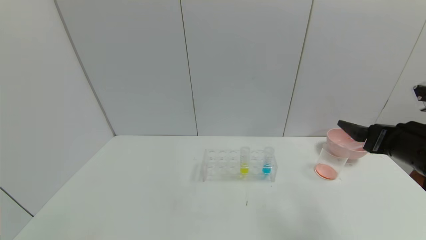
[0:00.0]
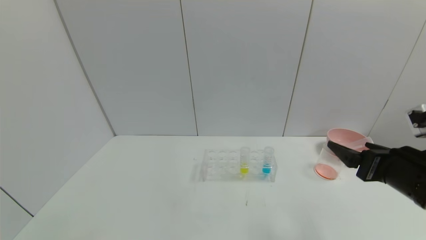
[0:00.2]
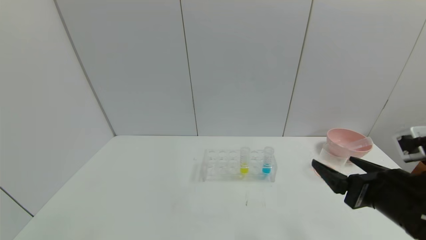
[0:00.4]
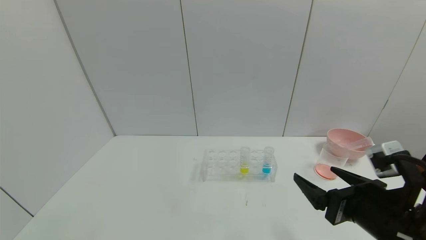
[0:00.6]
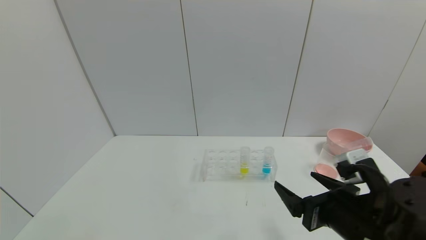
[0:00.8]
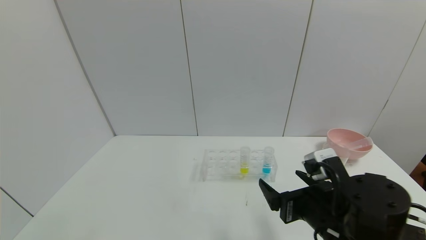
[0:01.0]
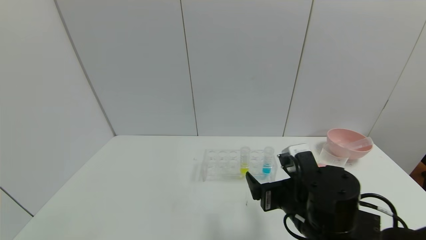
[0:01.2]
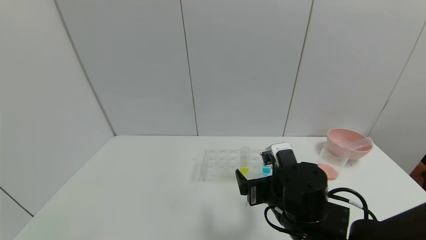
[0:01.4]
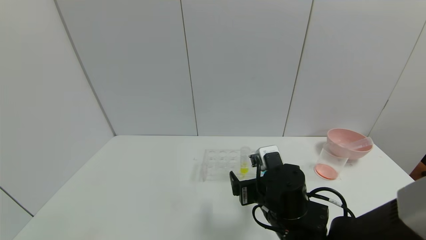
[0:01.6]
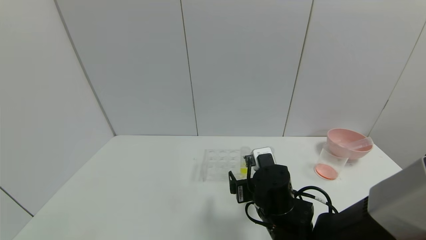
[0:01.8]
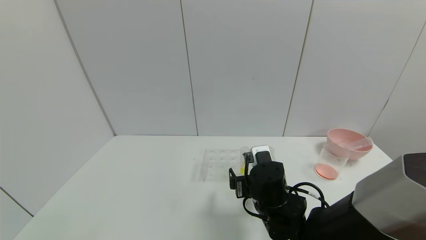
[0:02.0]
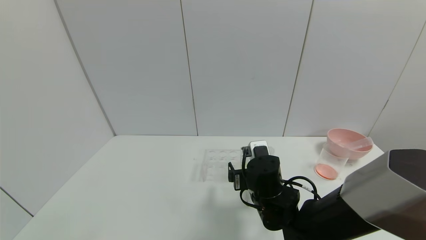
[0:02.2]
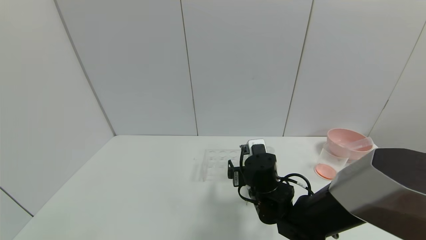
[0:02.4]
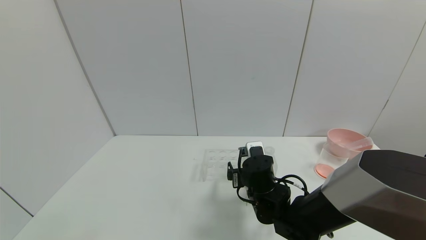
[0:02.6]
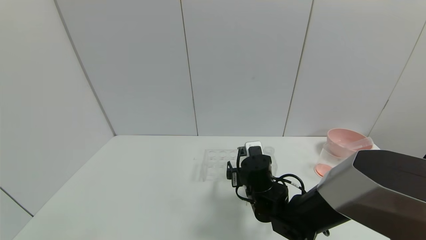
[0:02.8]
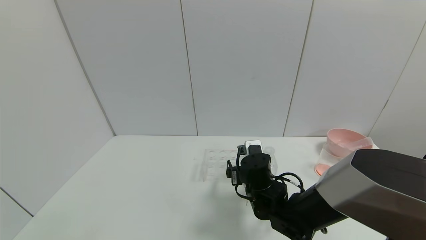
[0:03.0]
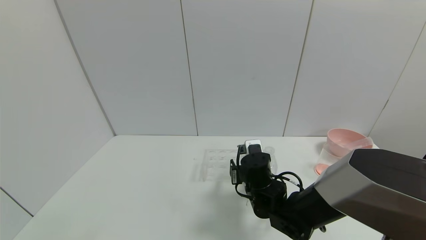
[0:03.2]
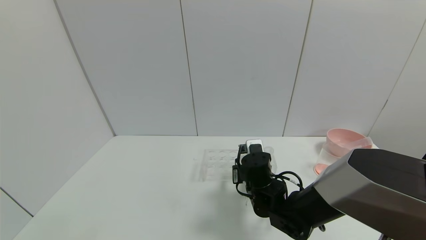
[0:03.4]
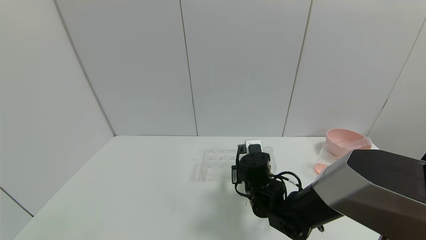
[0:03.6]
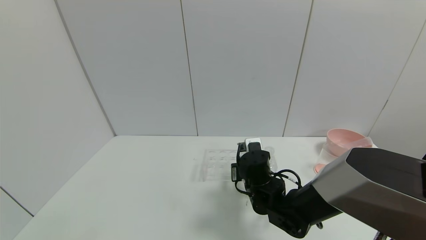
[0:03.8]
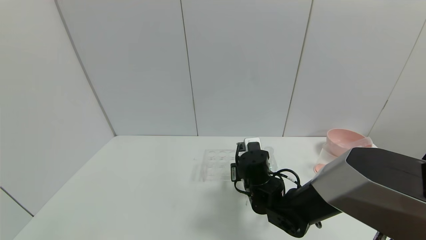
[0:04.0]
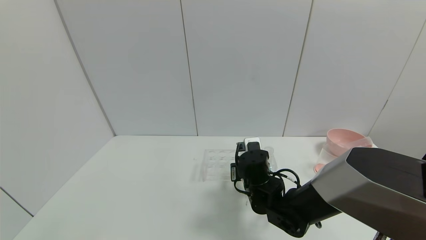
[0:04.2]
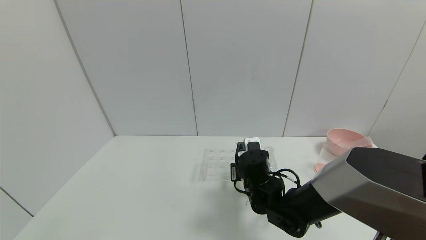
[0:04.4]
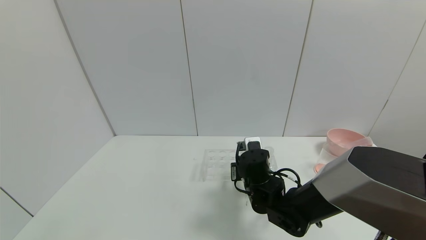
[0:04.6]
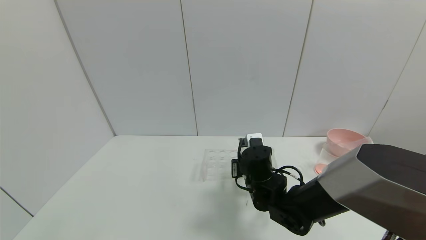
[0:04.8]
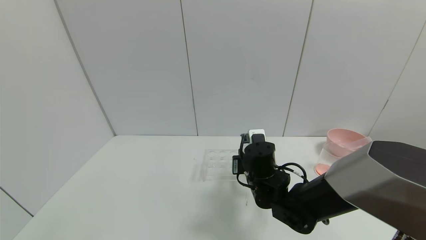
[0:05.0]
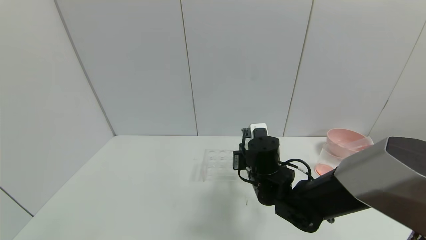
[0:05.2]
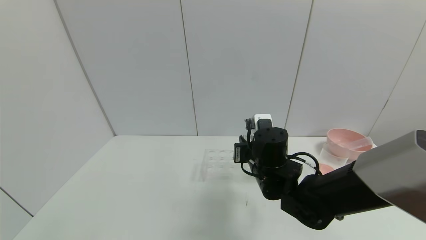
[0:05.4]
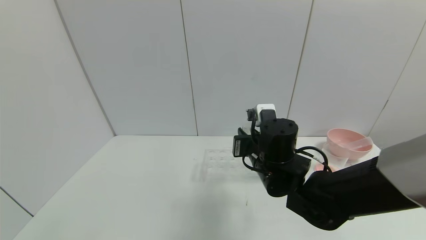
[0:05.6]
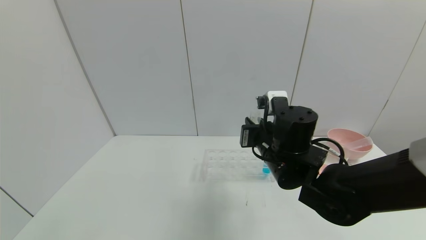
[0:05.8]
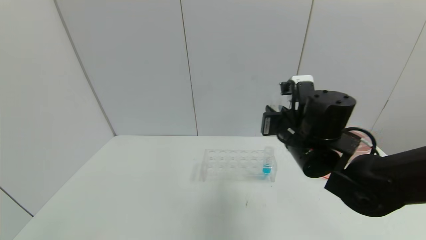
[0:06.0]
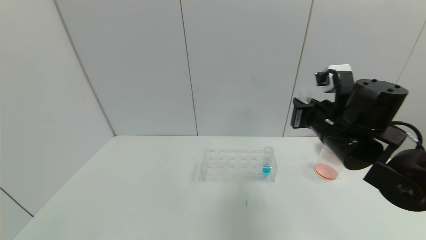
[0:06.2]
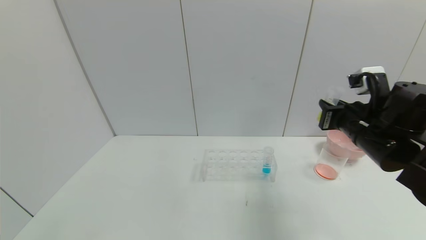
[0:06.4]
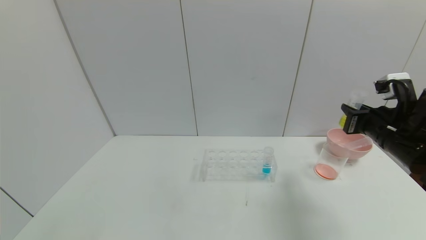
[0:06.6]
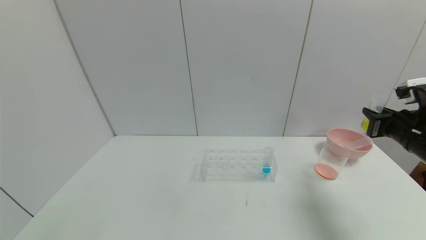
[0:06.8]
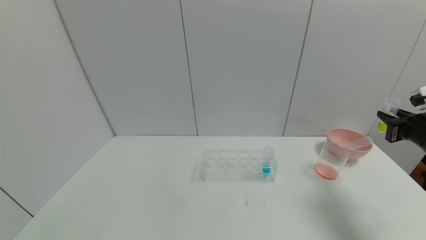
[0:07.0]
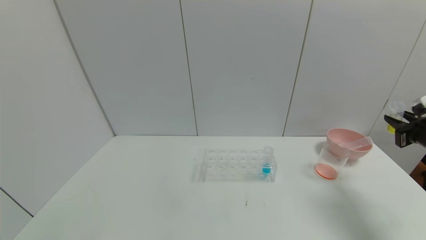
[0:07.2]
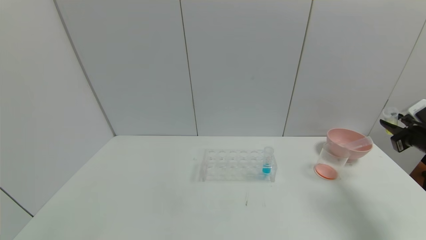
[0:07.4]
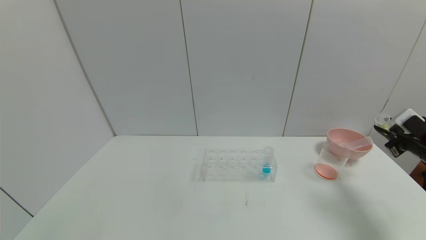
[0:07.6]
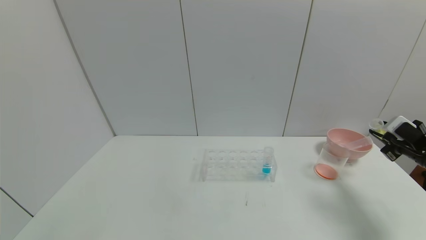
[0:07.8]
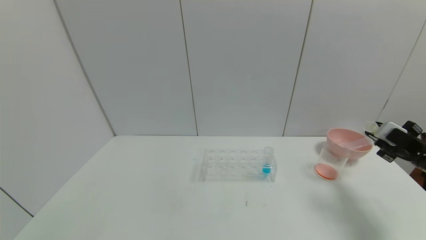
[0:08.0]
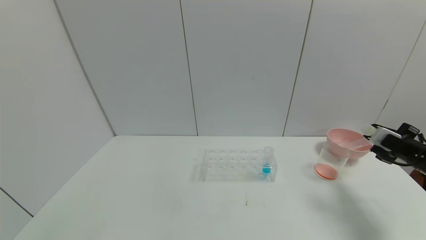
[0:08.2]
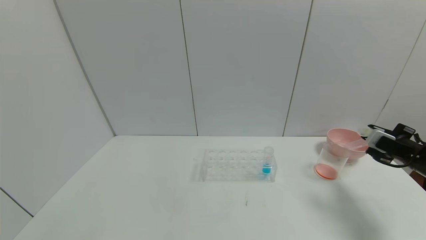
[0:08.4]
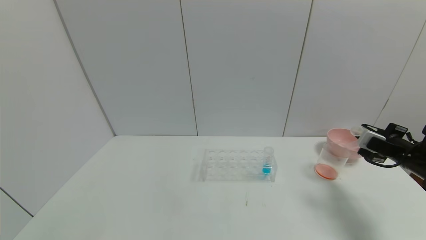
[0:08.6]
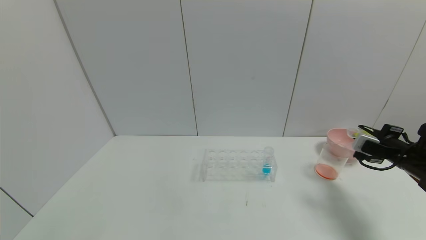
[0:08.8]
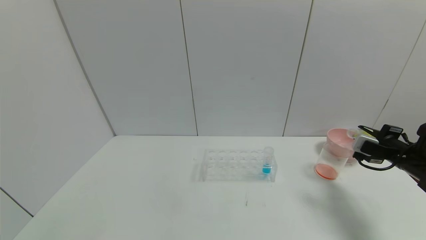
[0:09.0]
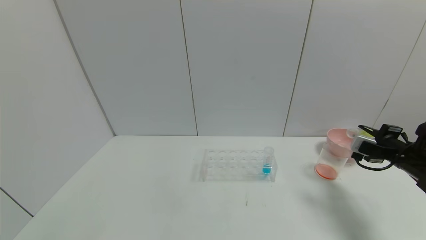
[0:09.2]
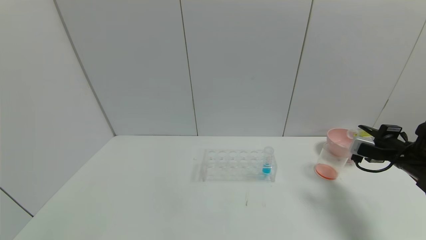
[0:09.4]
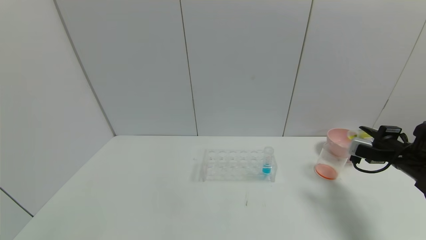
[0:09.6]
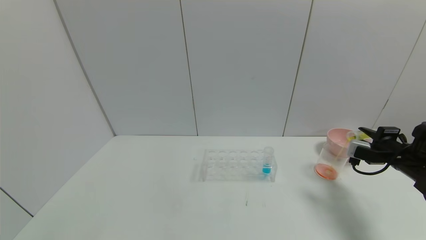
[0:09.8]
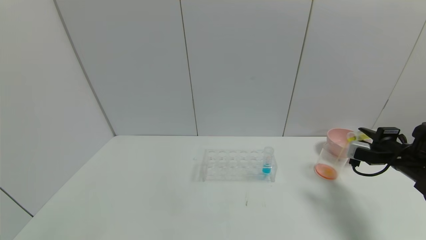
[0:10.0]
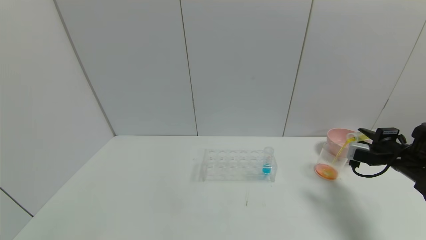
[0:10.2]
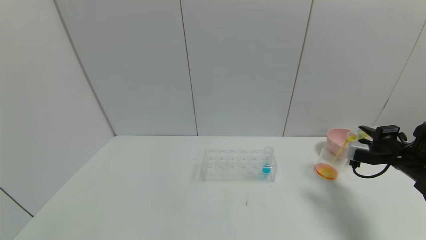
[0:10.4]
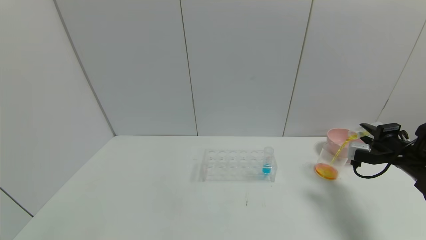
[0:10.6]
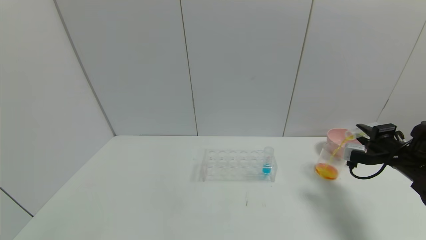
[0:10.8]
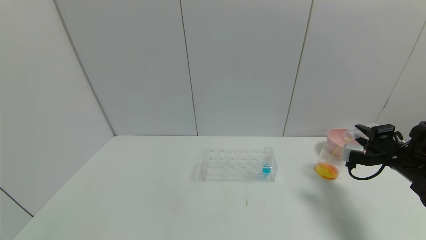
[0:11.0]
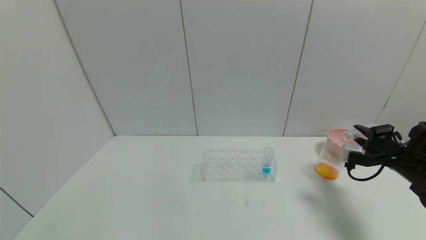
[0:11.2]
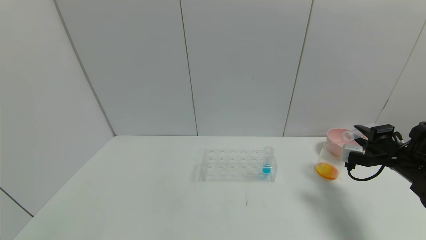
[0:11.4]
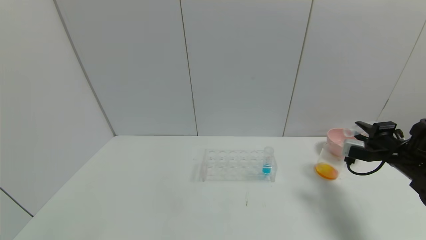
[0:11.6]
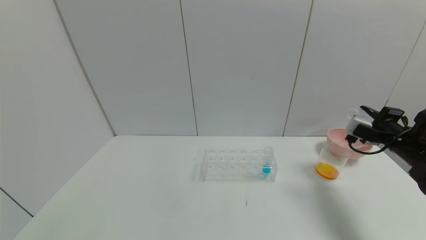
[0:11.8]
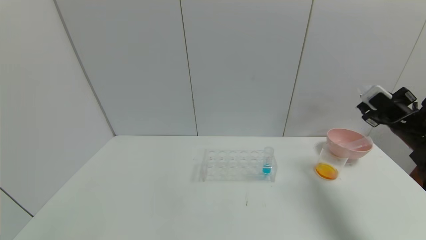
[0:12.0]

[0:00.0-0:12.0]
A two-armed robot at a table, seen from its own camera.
Task of the whole recording: pick up the test tube with yellow pigment and the test tube with red pigment by grippers and pour them into the beaker.
Step, 0:00.0 to 0:04.4: Grasp the yellow reagent with the right gripper.
Step, 0:04.6 to 0:11.4: Pour the yellow reagent into the graduated cylinder with the right gripper.
0:00.0 to 0:01.6: The right gripper heads to the left and downward, covering approximately 25 cm.
0:01.6 to 0:03.0: The right gripper shifts approximately 10 cm forward.
0:03.0 to 0:04.4: The right gripper closes.
0:04.4 to 0:06.0: The right gripper shifts approximately 15 cm upward and to the right.
0:06.0 to 0:07.6: The right gripper travels to the right by roughly 30 cm.
0:09.0 to 0:10.4: The grippers stay close to where they were, moving slightly.
0:10.4 to 0:12.0: The right gripper heads upward, covering some 5 cm.

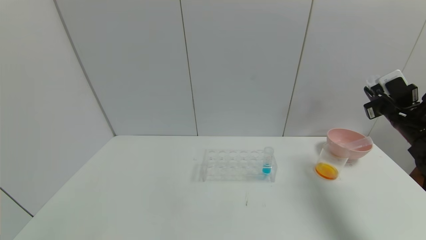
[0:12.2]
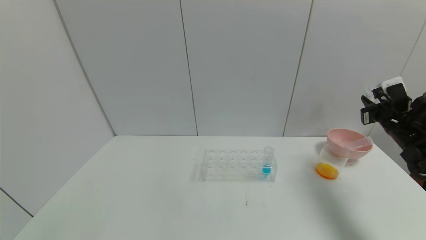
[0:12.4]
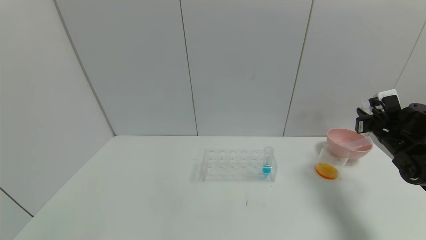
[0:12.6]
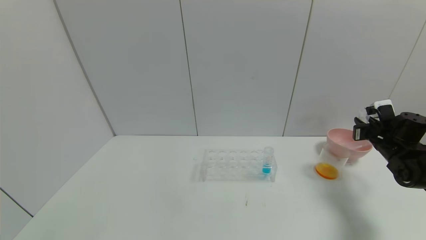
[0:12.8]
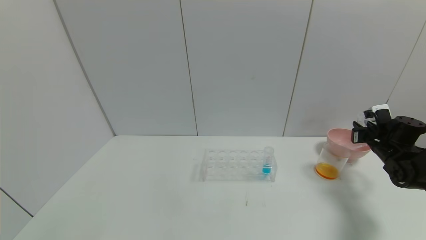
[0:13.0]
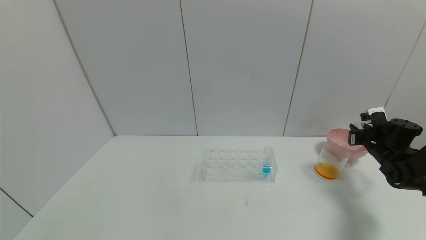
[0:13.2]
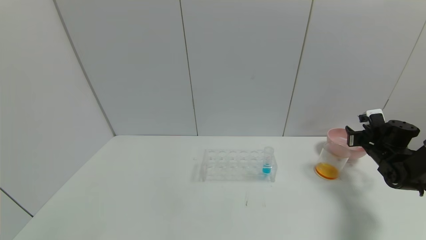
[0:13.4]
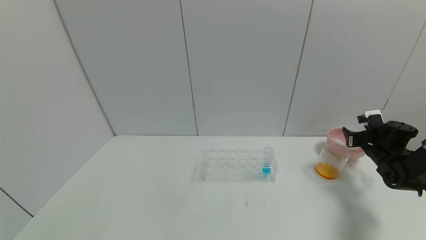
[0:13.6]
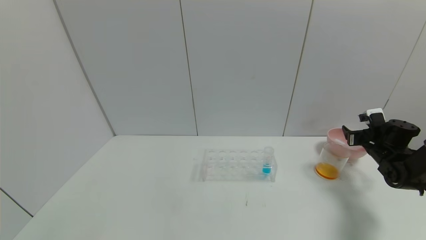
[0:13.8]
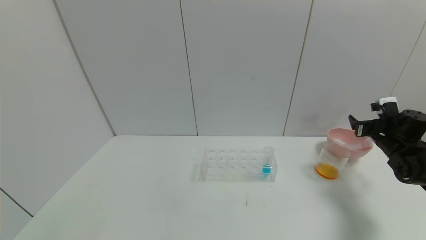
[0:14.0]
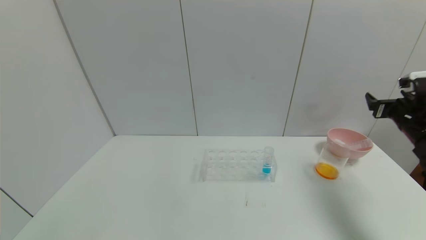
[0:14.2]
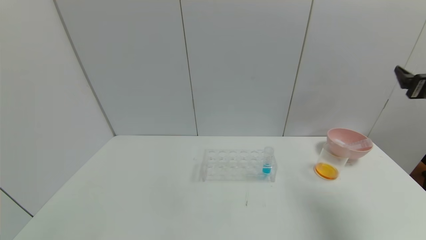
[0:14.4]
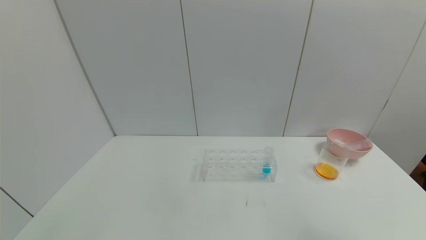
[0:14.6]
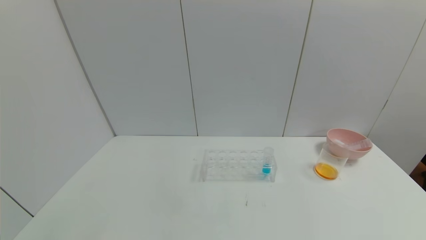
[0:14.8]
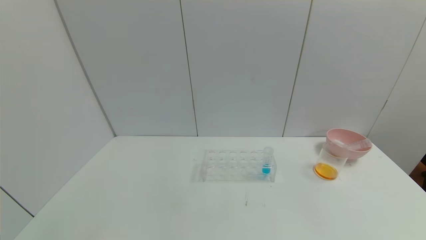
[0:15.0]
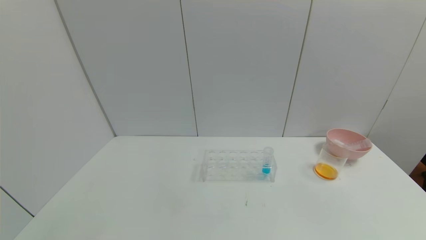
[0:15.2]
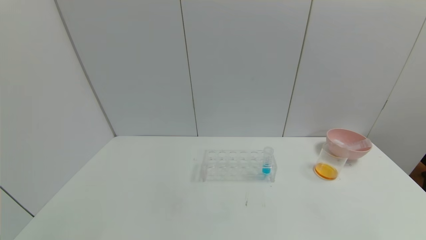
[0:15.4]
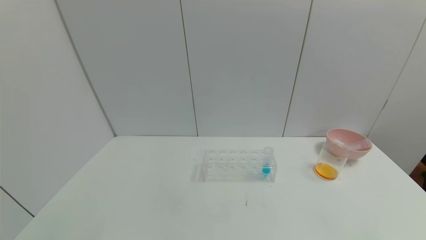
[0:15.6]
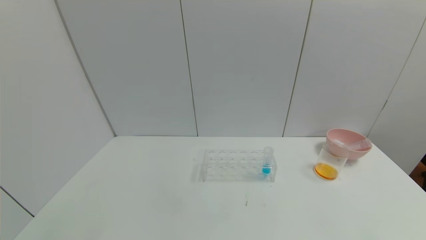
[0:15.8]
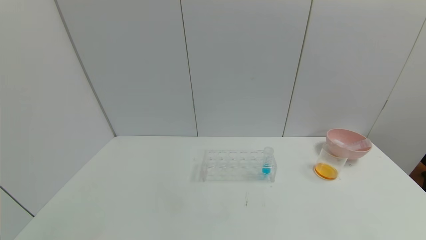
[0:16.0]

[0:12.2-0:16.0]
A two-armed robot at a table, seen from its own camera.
Task of the whole recording: pick up the test tube with yellow pigment and the test tube with red pigment by grippers and pour them into the beaker.
Step, 0:12.2 to 0:13.6: Place the test tube into the bowl with the right gripper.
0:12.2 to 0:13.4: The right gripper shifts roughly 15 cm downward and forward, and opens.
0:13.4 to 0:14.8: The right gripper shifts approximately 40 cm backward and upward, and opens up.
